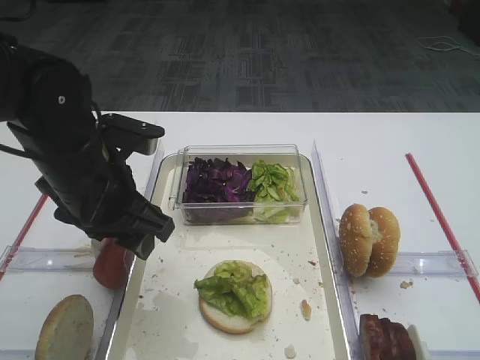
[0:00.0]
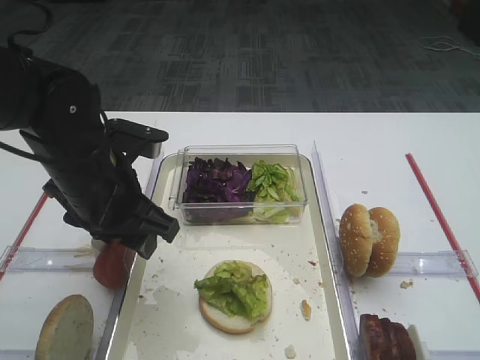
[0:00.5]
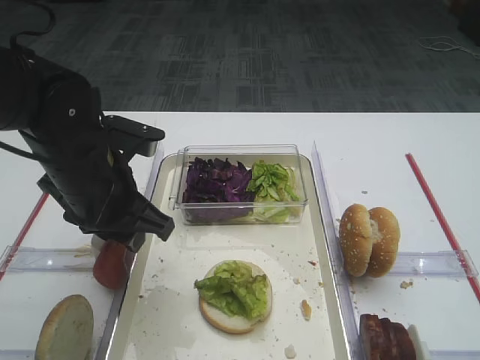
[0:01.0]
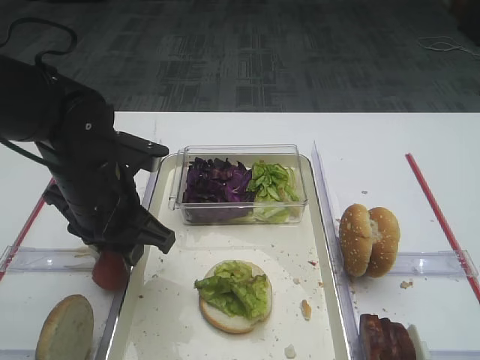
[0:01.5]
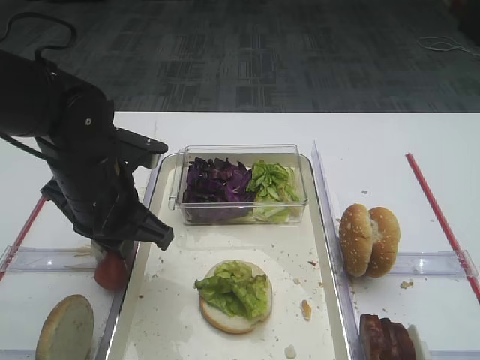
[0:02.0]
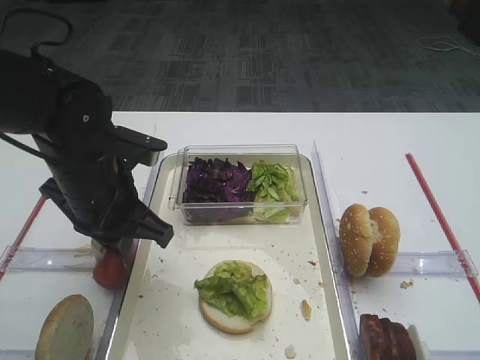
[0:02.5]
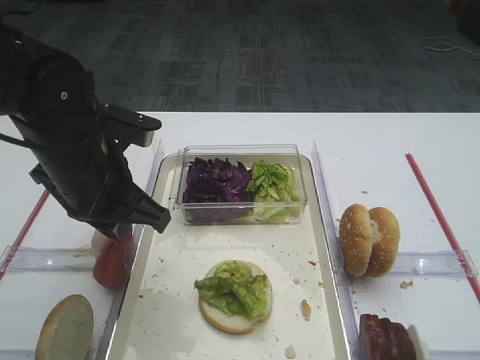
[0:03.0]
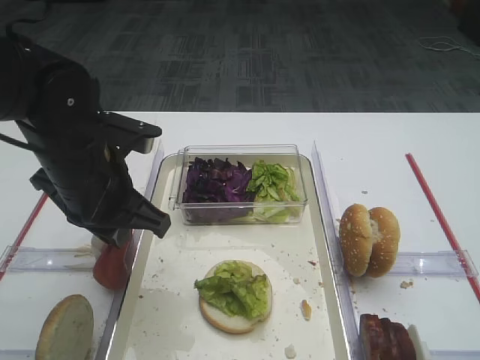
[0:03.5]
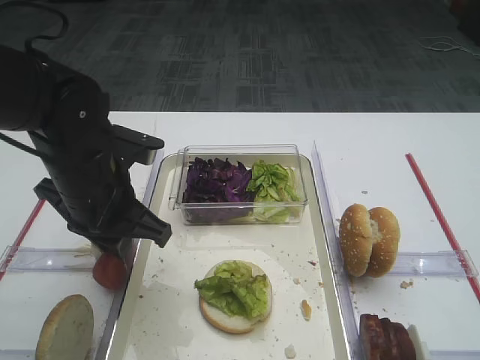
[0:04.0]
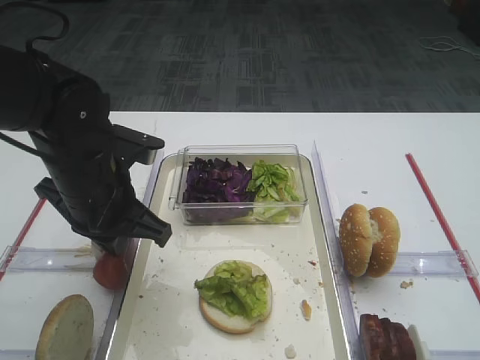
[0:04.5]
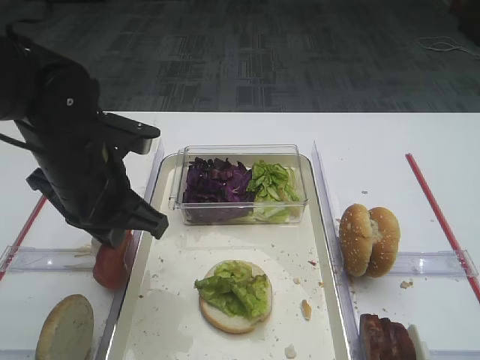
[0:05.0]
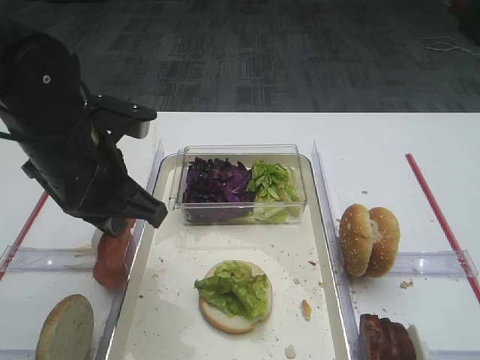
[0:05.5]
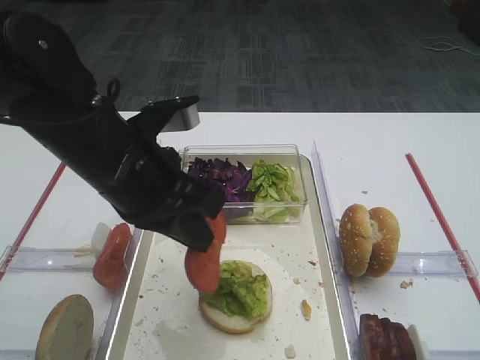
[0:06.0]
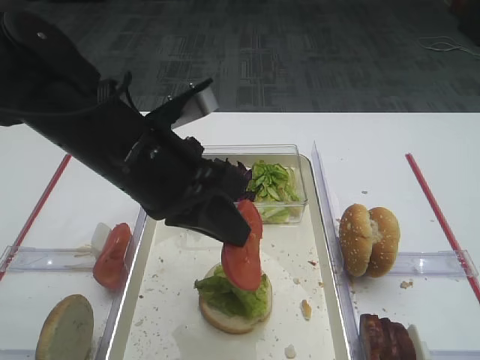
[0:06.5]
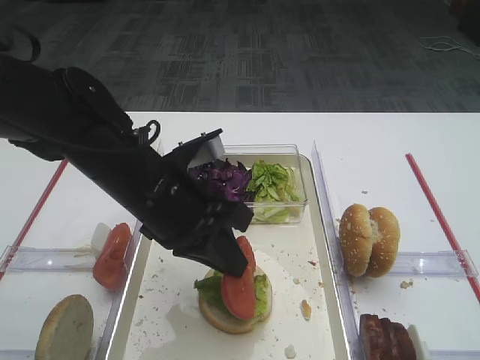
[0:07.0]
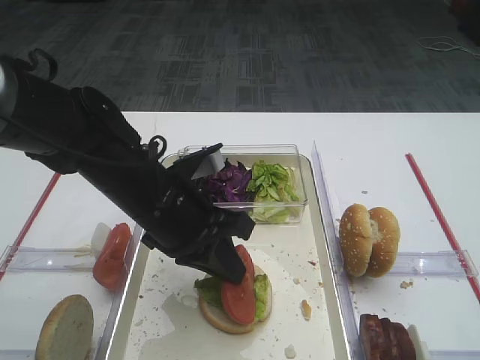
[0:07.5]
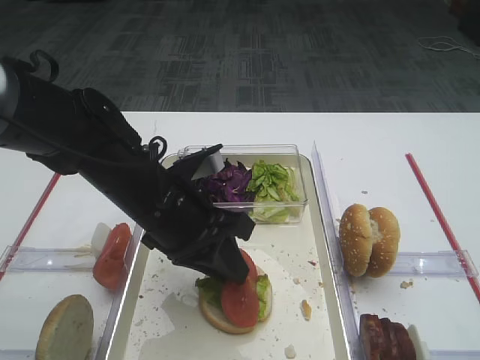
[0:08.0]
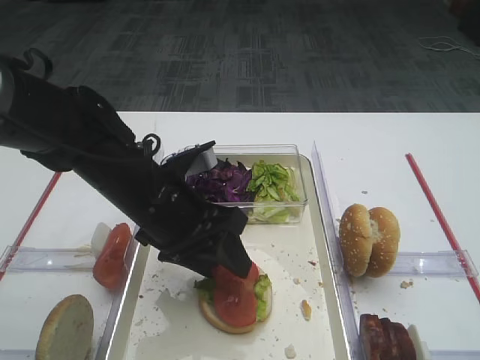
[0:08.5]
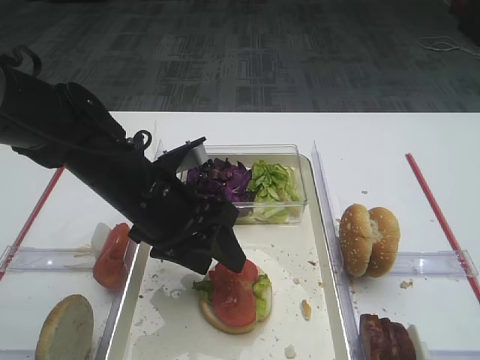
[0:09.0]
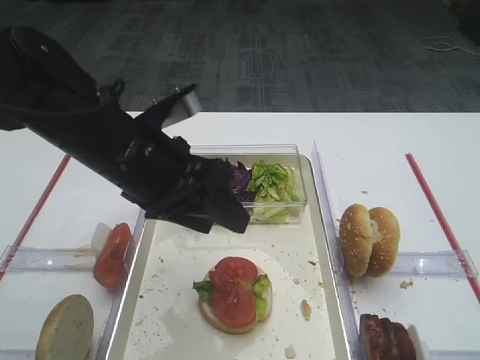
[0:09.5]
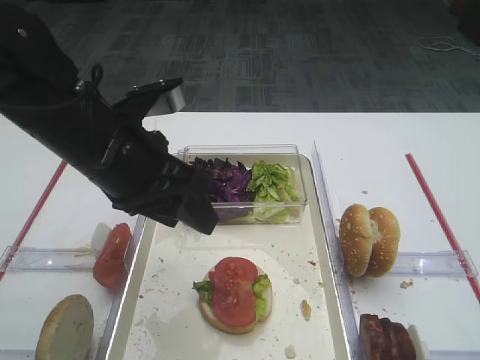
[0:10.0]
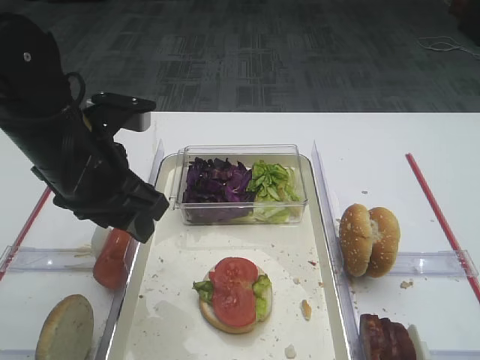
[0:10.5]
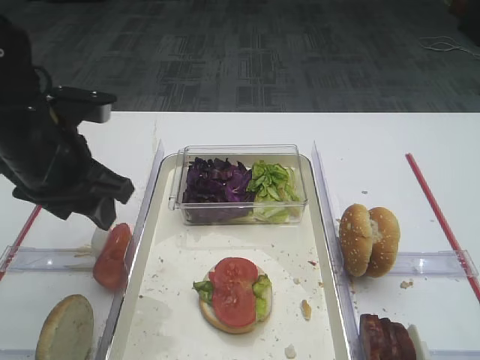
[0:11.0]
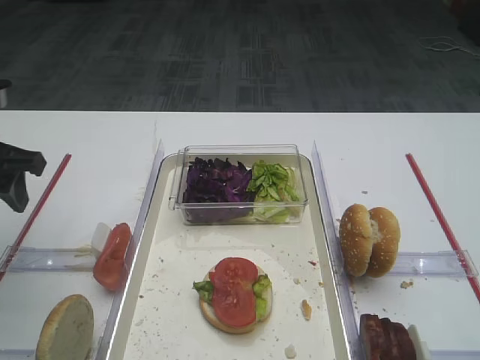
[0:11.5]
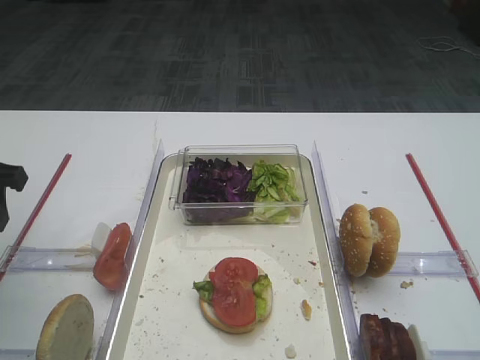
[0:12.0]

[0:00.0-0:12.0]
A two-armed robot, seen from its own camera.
Step, 0:00.0 to 0:05.5: Pick up the tomato slice with the left gripper.
Step, 0:06.0 to 0:09.0: Place the tomato slice on the lettuce leaf with the left gripper.
0:00.0 to 0:02.0: The left gripper closes up.
0:02.0 to 0:04.0: There are only small adjustments of the grippers.
0:04.0 to 0:06.0: The left gripper goes roughly 5 cm upward.
0:06.0 to 0:08.0: The left gripper goes about 5 cm downward.
0:08.0 to 0:10.0: The left gripper heads upward, covering about 5 cm, and opens up.
0:10.0 to 0:12.0: The left gripper is displaced to the left by about 20 cm.

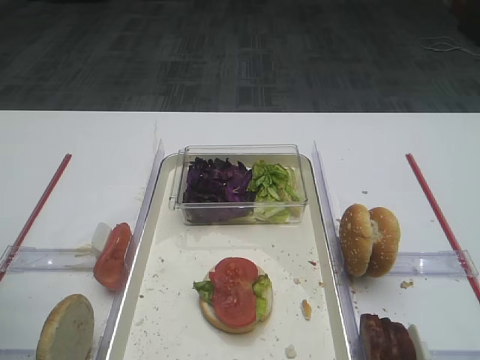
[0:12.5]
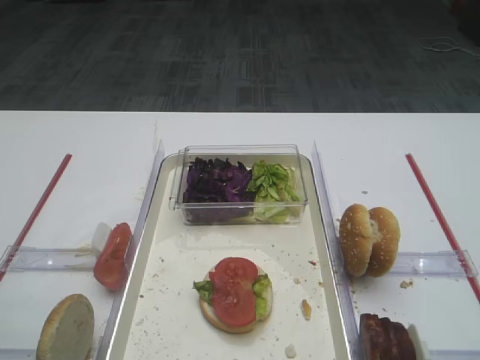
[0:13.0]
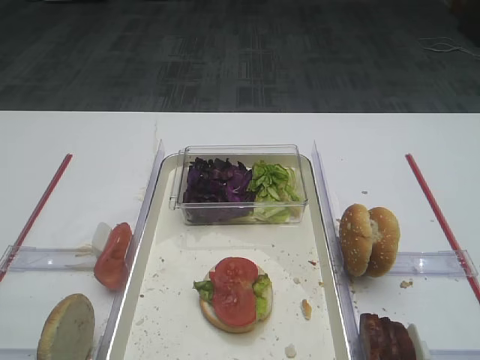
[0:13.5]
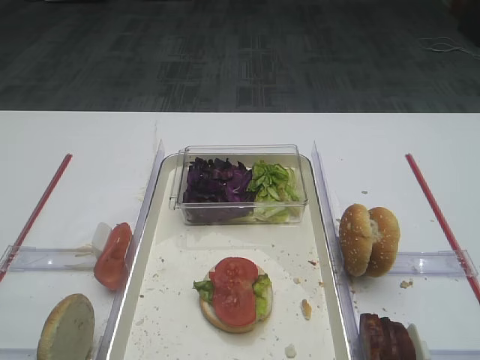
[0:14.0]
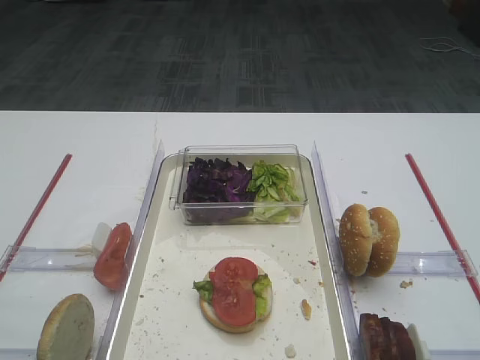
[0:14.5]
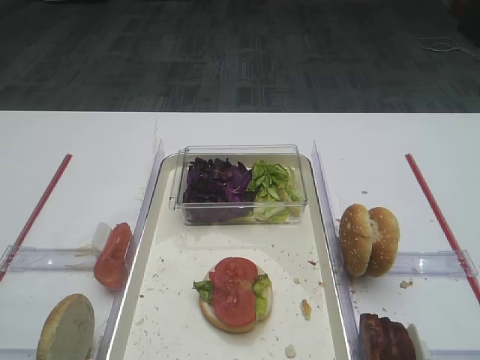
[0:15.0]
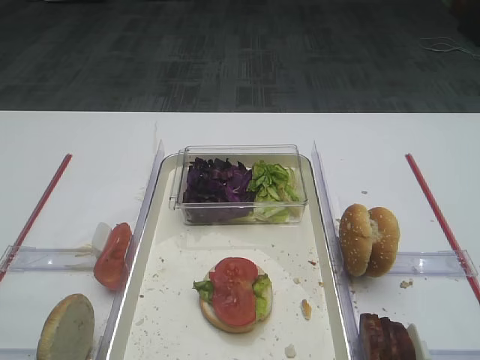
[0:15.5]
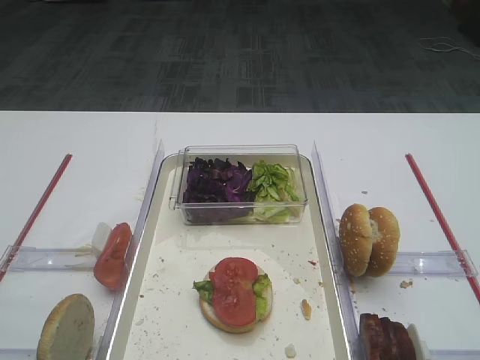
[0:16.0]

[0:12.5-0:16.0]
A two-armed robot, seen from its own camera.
0:14.5 to 0:16.0: Both grippers stay about where they are.

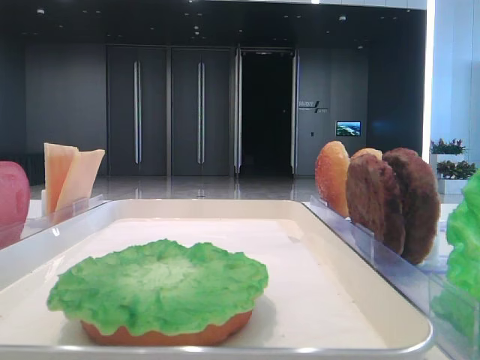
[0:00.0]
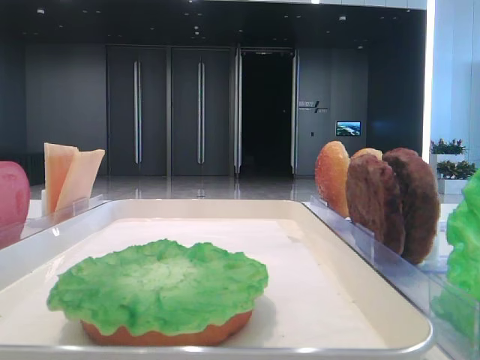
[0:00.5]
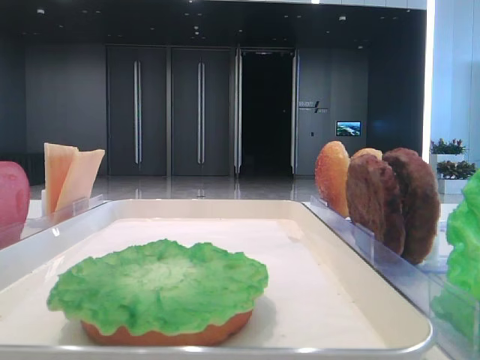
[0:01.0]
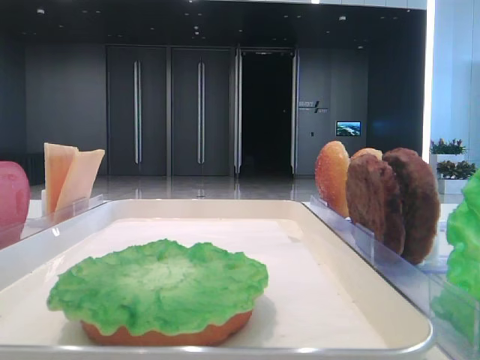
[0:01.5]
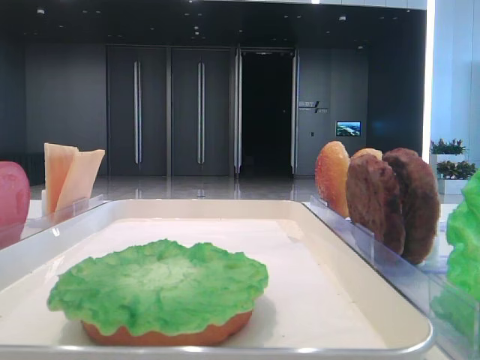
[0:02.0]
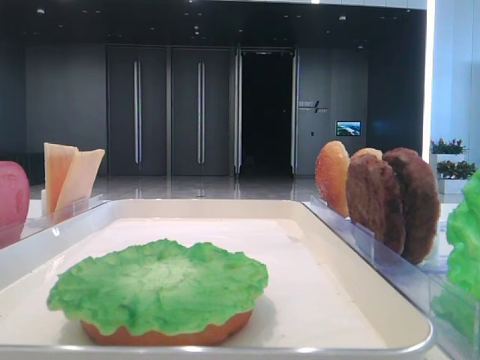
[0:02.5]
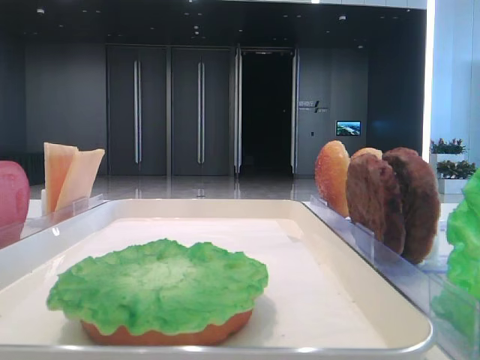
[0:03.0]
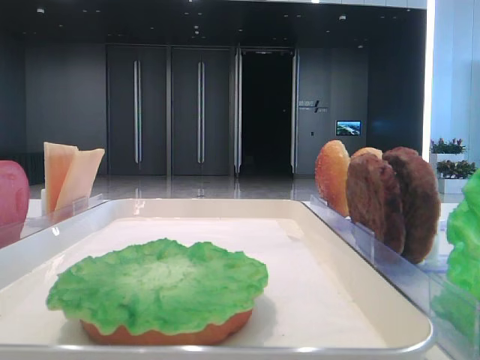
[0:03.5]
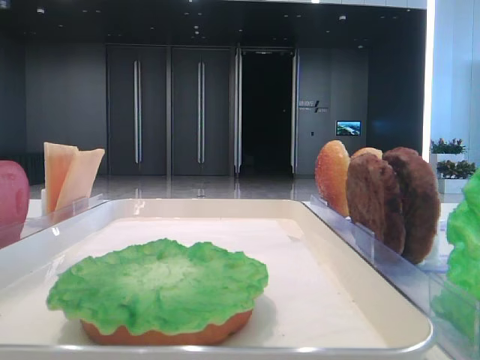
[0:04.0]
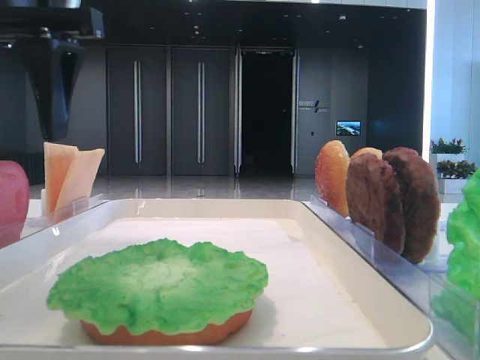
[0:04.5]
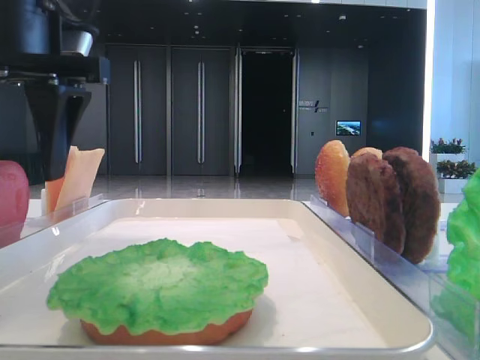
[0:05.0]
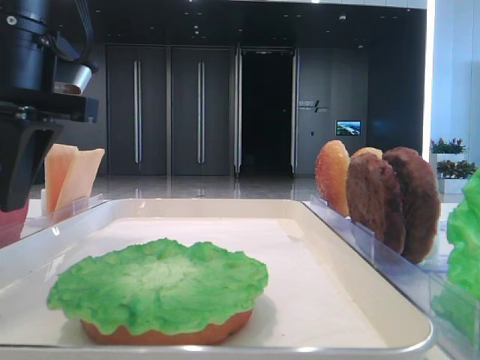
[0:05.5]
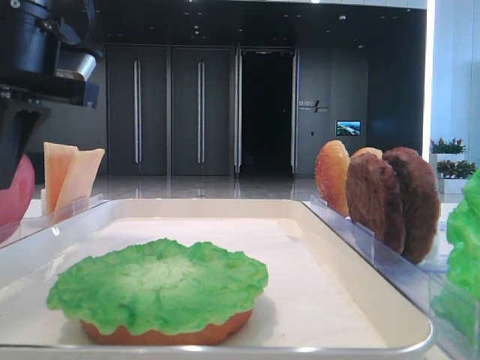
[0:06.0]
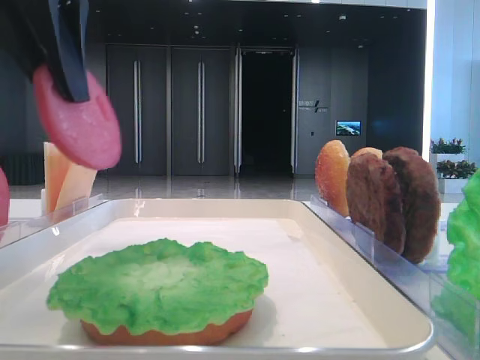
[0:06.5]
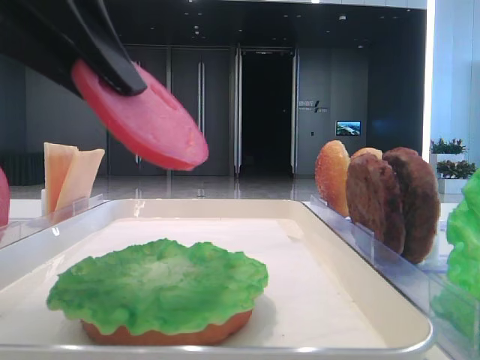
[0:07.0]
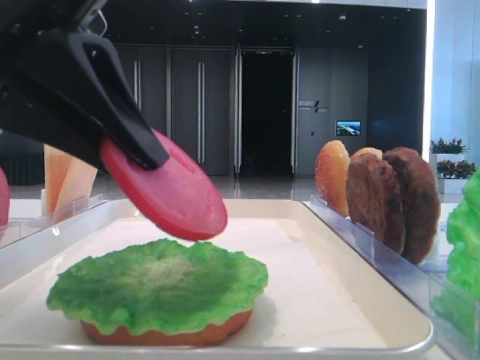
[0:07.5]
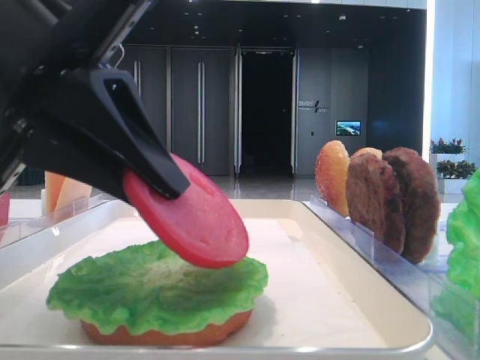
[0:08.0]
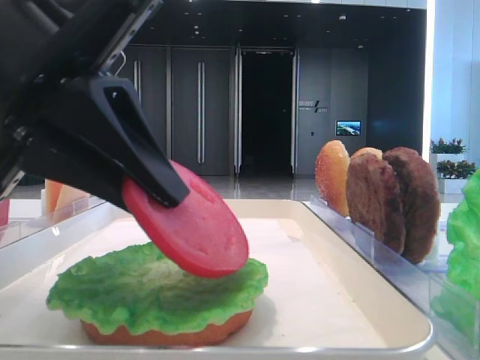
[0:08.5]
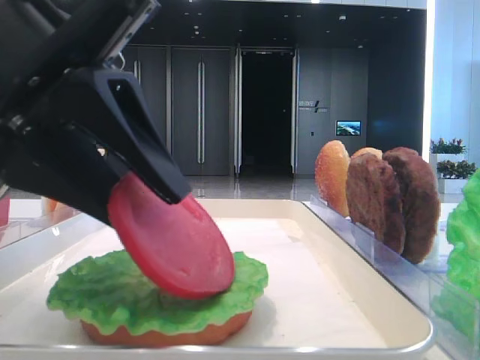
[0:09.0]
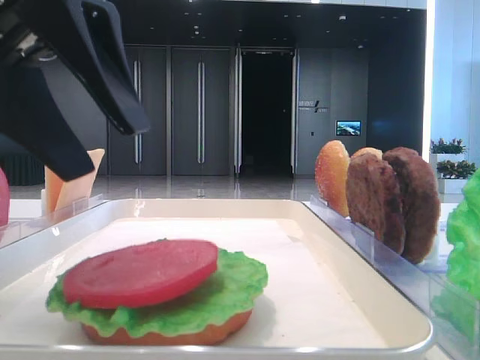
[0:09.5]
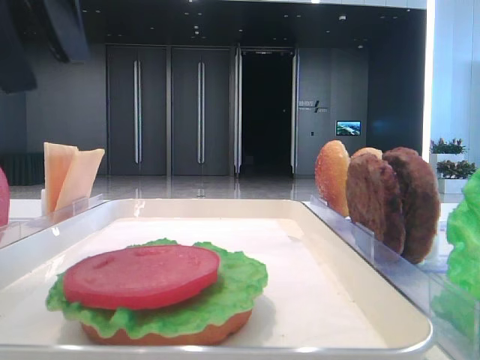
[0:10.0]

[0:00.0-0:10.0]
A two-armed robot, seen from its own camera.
Step, 0:00.0 to 0:05.5: Pick up the tomato slice with the left hand.
Step, 0:06.0 to 0:09.0: Place the tomato slice on the lettuce leaf with the left hand.
0:02.0 to 0:04.0: The left gripper shifts roughly 25 cm forward.
0:04.0 to 0:06.0: The left gripper travels to the right and downward by some 10 cm, and closes its fingers.
0:06.0 to 0:08.0: The left gripper shifts about 10 cm backward and downward.
0:08.0 to 0:10.0: The left gripper moves upward, some 10 cm, and opens.
